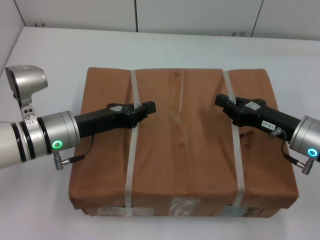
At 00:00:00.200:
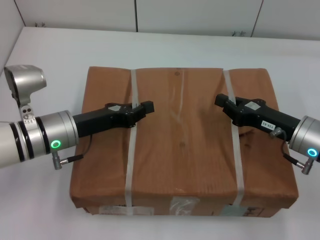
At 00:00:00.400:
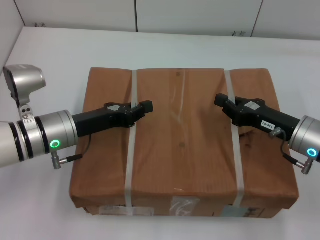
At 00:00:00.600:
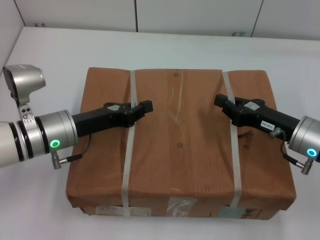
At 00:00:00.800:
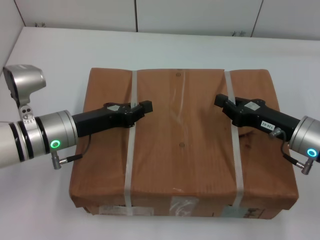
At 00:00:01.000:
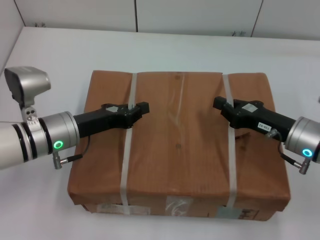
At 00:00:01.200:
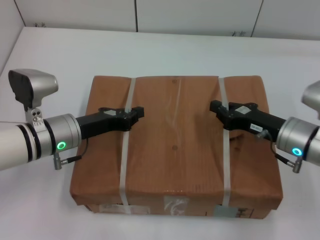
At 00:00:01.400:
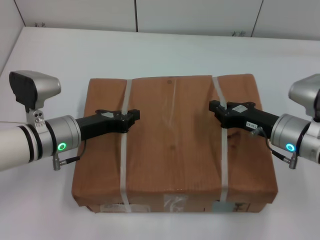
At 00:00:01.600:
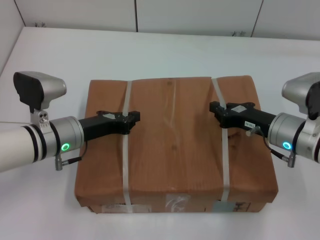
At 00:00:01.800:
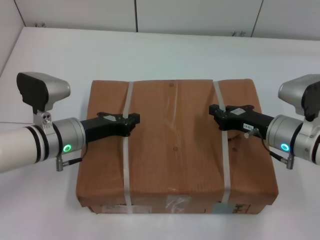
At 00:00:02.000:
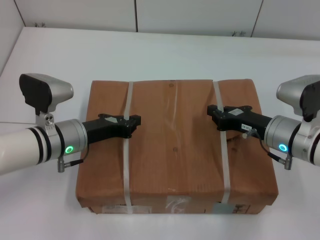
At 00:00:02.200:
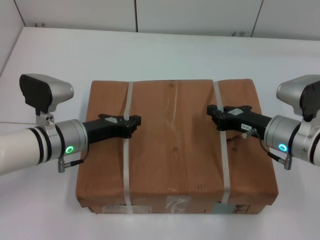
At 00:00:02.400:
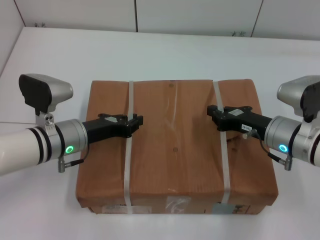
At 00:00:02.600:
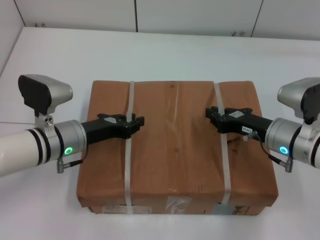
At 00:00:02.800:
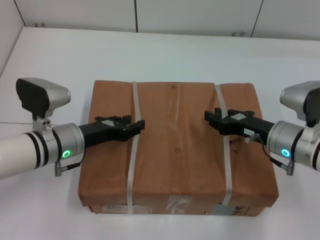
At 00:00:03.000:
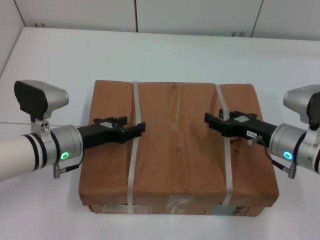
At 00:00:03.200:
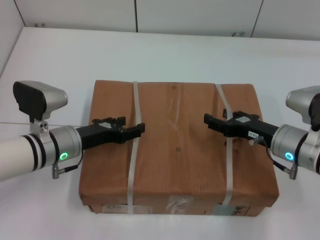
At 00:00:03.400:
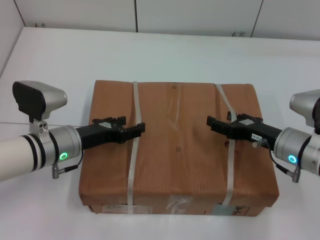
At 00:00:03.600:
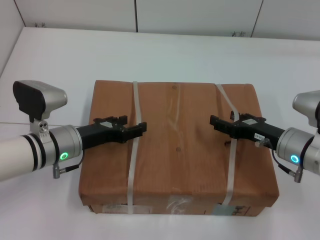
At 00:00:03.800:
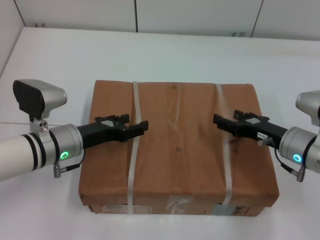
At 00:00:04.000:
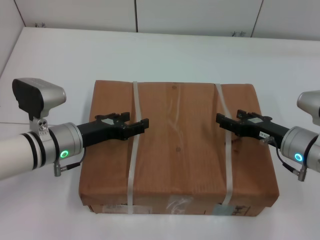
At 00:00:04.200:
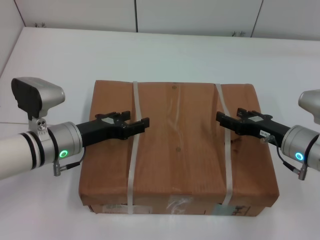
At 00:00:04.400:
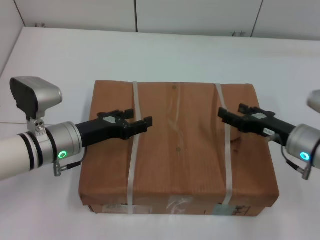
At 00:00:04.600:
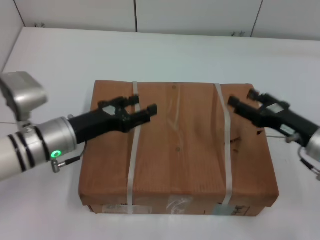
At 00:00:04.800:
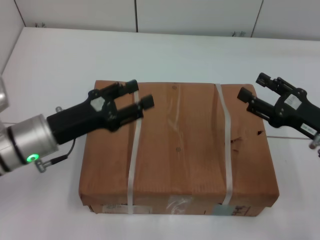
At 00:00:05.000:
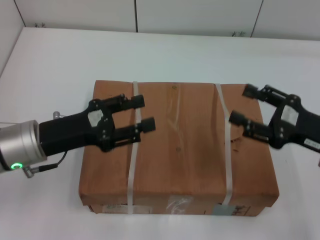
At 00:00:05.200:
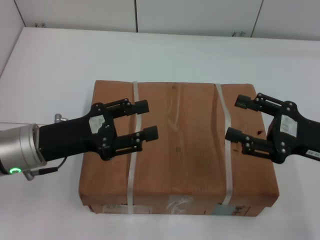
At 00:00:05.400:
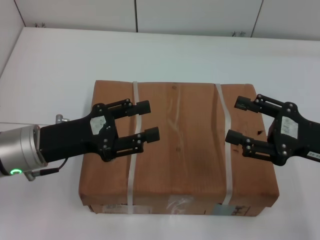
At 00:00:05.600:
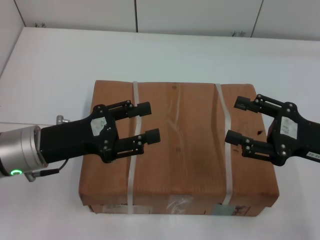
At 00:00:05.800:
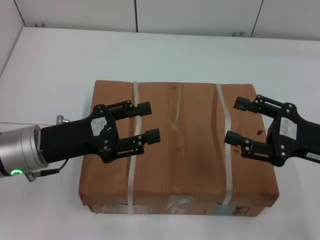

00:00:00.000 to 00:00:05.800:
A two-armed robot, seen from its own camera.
Task of the whole recording: place the box on the table with both arms.
Step, 00:00:00.000 to 00:00:01.800: Place the box on the table with left gripper.
Step, 00:00:00.000 to 00:00:01.800: Place the box on the table with right gripper.
Step, 00:00:02.000 to 00:00:03.800: Loosen the box on the table with left gripper.
Step, 00:00:02.000 to 00:00:03.800: Loosen the box on the table with right gripper.
00:00:01.400 to 00:00:02.800: The left gripper opens its fingers.
00:00:02.800 to 00:00:04.400: The right gripper opens its fingers. Meanwhile the left gripper opens.
00:00:04.400 to 00:00:05.800: The right gripper is displaced upward and backward by about 10 cm, while the left gripper moves upward, roughly 5 cm.
